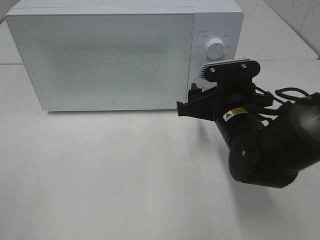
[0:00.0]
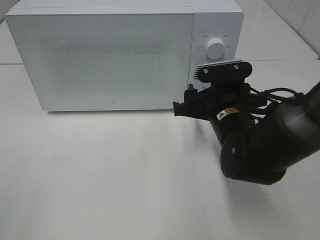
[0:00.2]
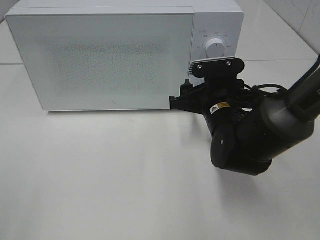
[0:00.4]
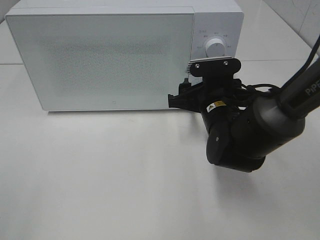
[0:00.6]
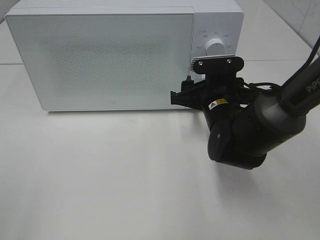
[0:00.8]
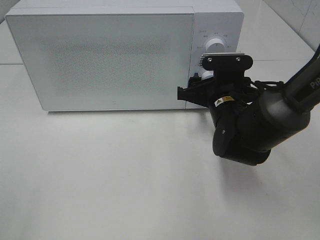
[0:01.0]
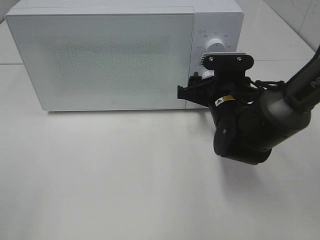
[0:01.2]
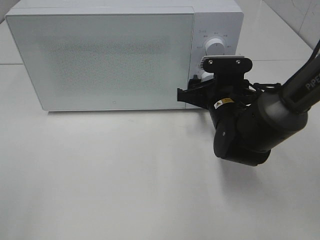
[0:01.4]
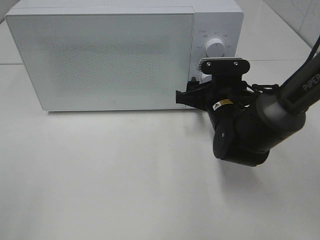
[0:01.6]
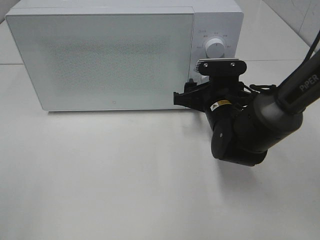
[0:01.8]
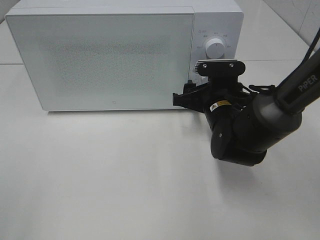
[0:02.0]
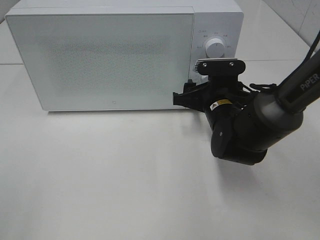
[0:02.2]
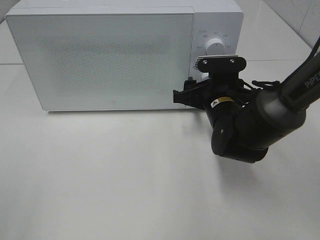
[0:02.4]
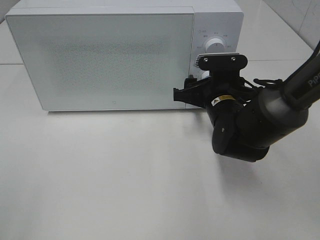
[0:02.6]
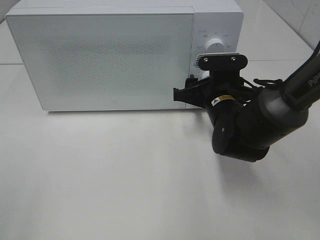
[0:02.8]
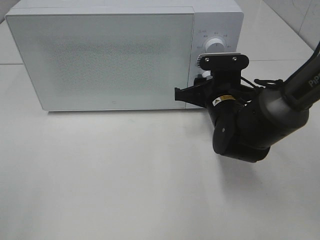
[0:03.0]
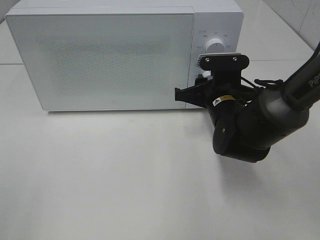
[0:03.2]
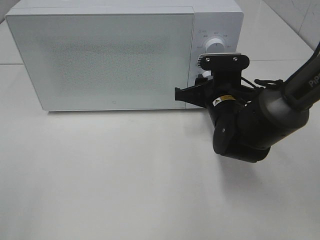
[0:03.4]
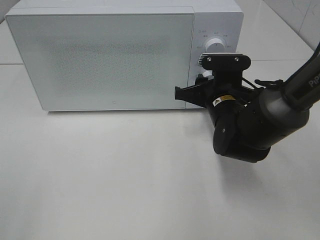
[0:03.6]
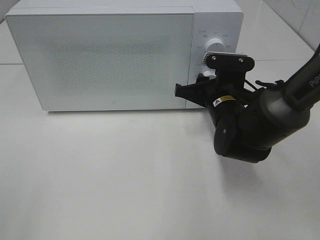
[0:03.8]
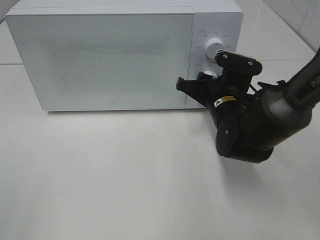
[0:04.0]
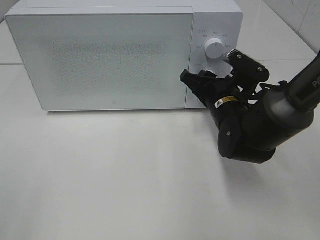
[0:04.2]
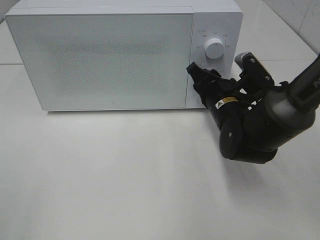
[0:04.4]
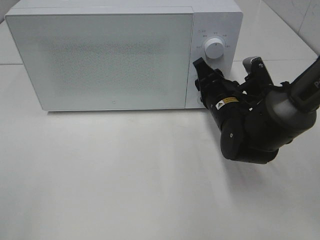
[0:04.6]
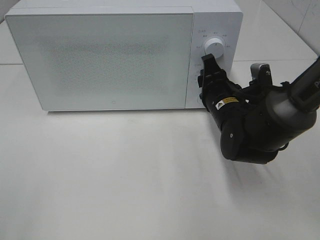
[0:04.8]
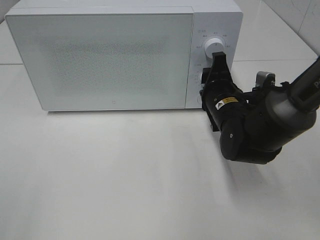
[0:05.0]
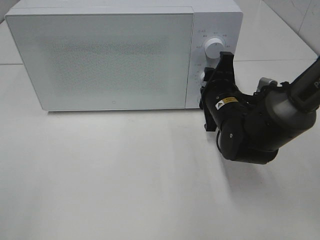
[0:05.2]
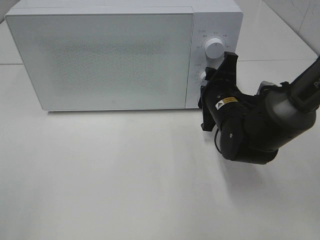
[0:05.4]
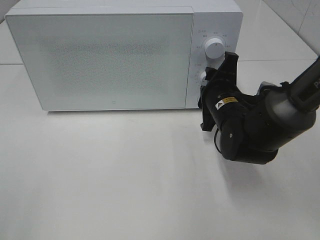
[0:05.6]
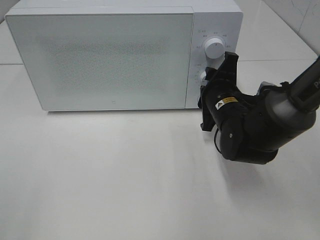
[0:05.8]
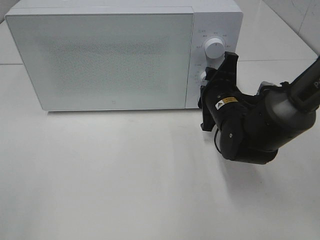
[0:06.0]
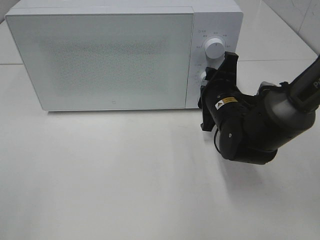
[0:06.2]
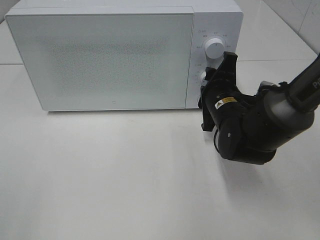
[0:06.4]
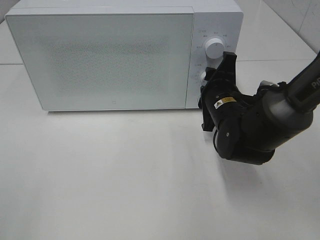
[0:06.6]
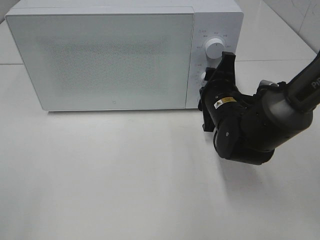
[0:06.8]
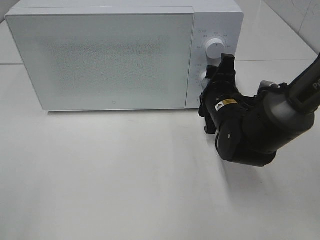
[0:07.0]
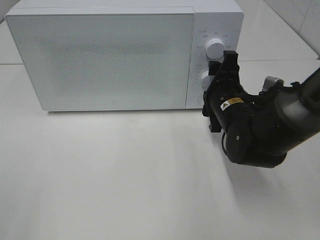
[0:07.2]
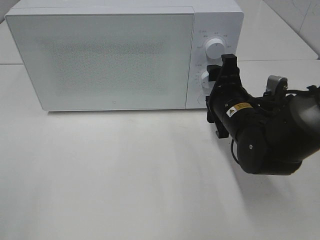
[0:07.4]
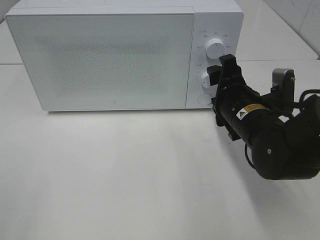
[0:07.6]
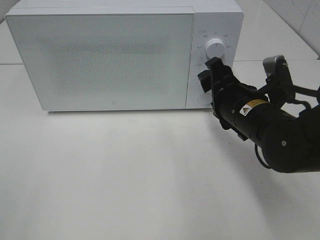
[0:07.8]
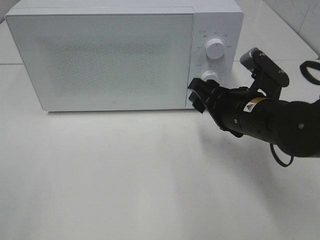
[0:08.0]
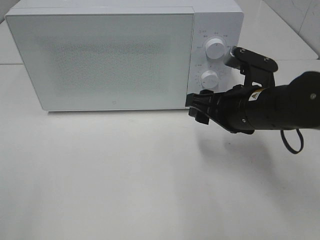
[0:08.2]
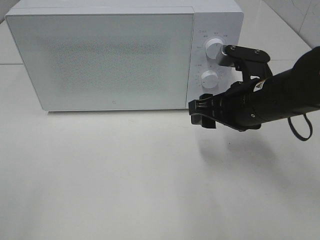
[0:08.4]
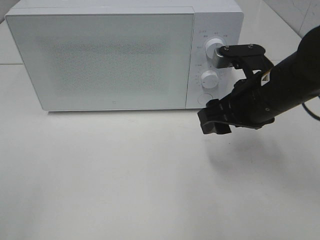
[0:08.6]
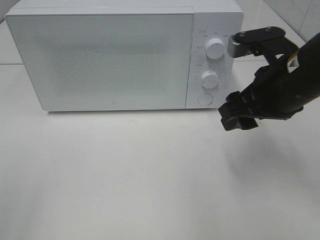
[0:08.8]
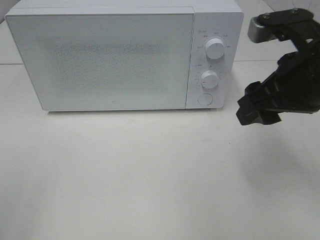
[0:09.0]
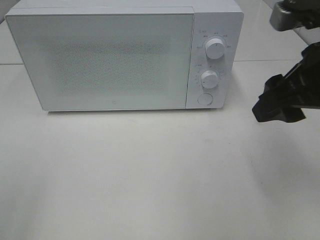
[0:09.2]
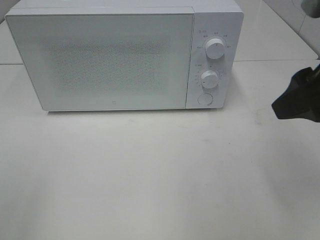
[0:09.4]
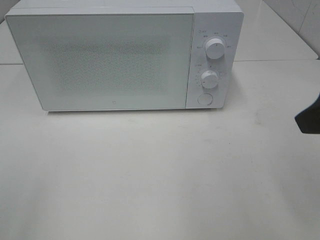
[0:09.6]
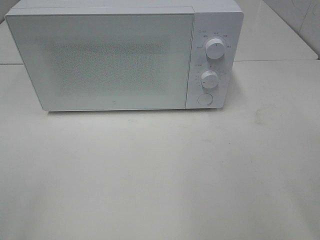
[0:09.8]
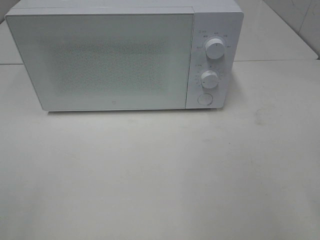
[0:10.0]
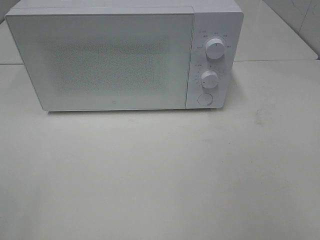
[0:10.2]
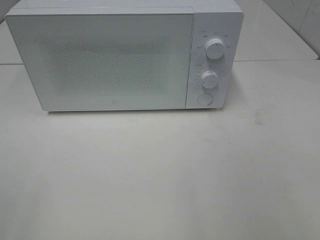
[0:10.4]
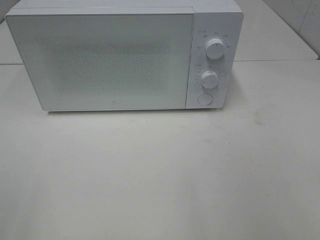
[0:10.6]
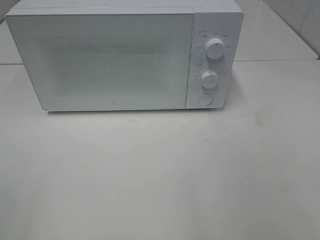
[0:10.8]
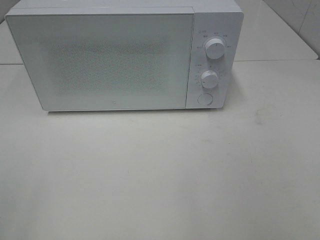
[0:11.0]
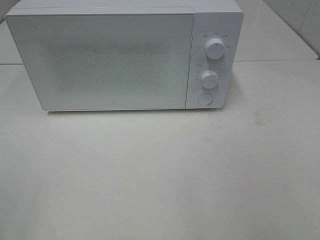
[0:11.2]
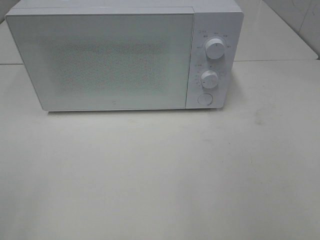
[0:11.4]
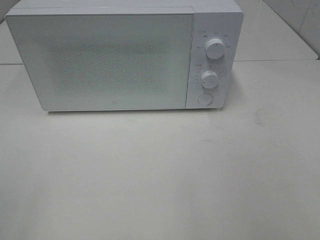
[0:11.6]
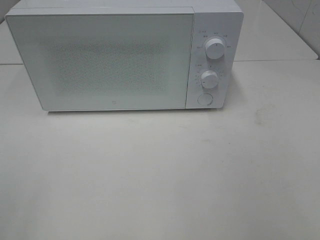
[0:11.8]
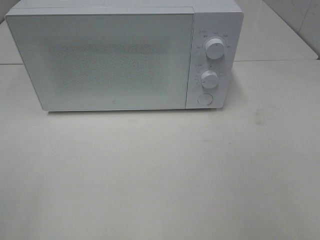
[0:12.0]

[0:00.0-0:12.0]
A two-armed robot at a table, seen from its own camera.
Task of the whole recording: Heat the burger.
Step, 0:00.0 to 0:07.0: Right hand: twist timer button.
0:00.0 to 0:01.6: The right gripper is displaced forward by some 5 cm.
0:01.6 to 0:03.0: Both grippers stay about where they are.
0:06.0 to 0:07.6: The right gripper moves some 5 cm.
0:07.6 to 0:09.0: The right gripper is displaced upward and backward by approximately 15 cm.
0:09.0 to 0:10.4: The right gripper goes about 20 cm backward and to the right.

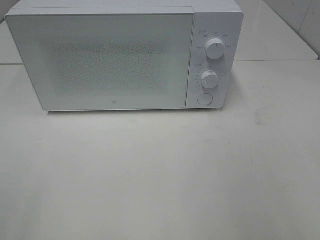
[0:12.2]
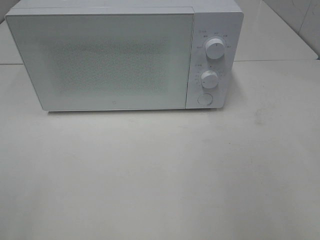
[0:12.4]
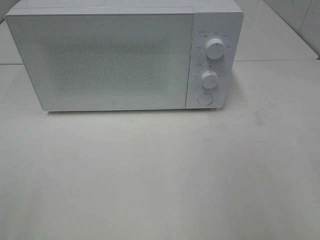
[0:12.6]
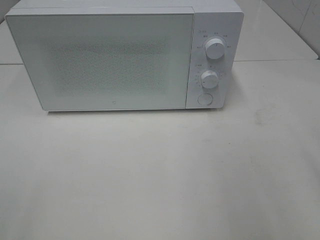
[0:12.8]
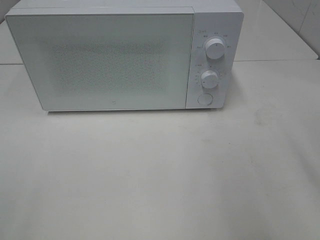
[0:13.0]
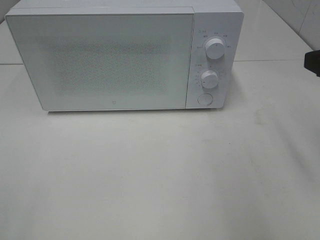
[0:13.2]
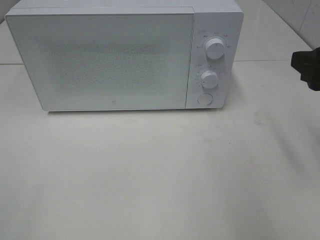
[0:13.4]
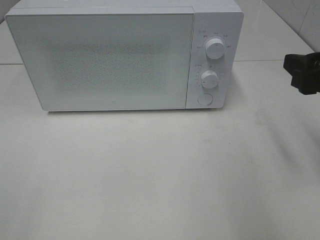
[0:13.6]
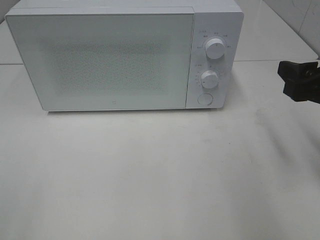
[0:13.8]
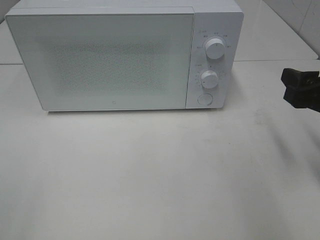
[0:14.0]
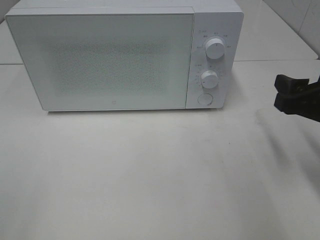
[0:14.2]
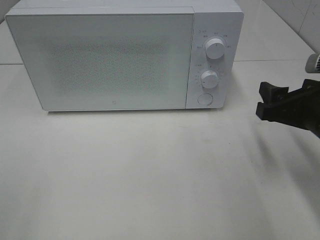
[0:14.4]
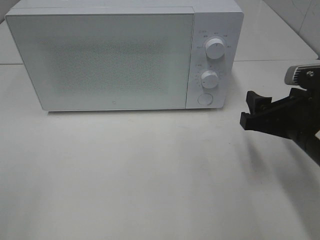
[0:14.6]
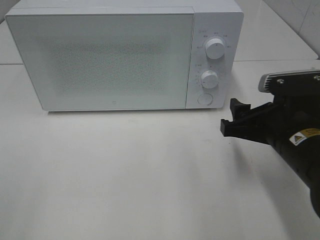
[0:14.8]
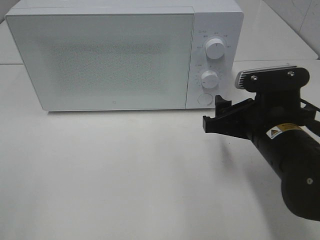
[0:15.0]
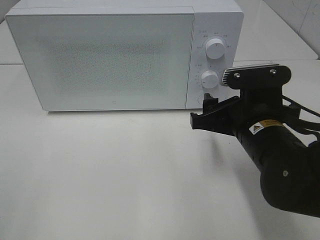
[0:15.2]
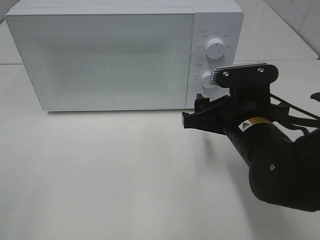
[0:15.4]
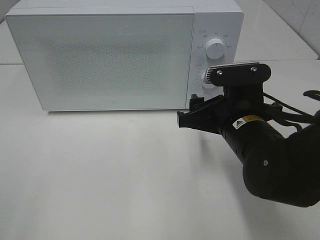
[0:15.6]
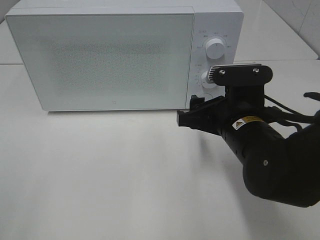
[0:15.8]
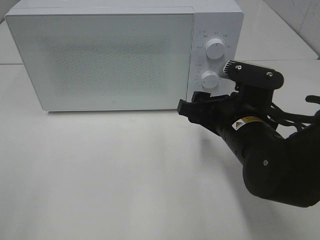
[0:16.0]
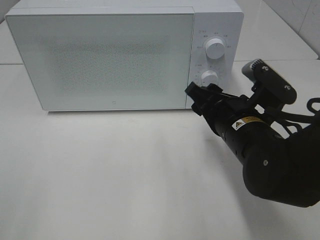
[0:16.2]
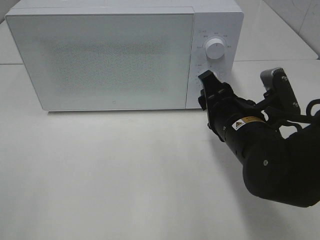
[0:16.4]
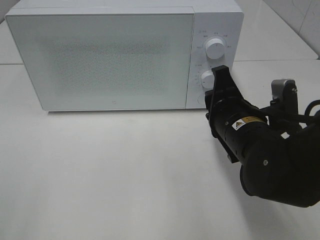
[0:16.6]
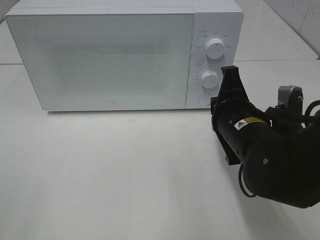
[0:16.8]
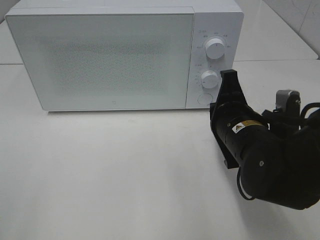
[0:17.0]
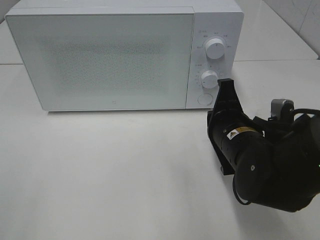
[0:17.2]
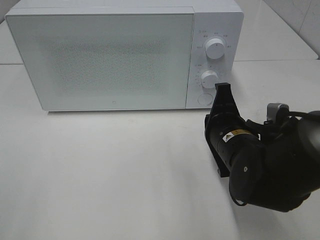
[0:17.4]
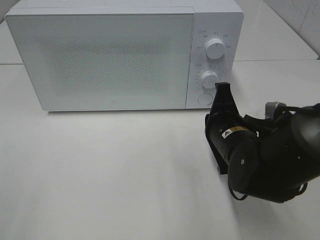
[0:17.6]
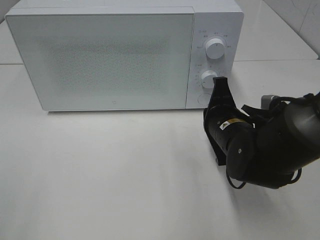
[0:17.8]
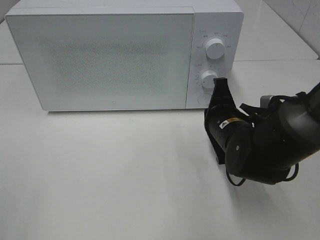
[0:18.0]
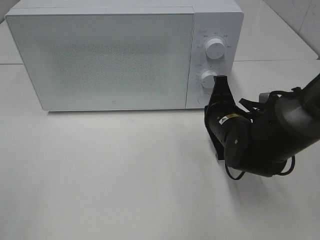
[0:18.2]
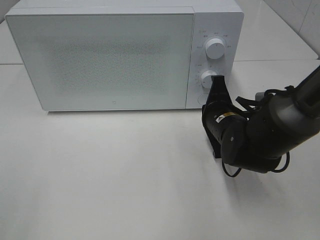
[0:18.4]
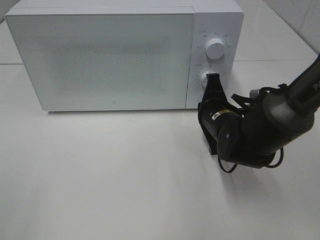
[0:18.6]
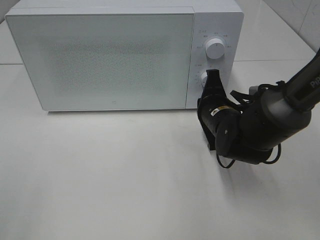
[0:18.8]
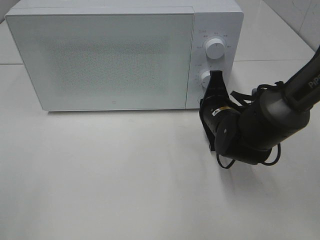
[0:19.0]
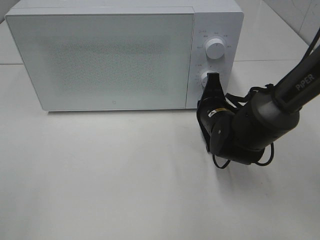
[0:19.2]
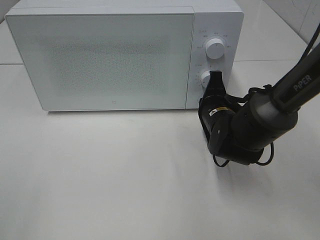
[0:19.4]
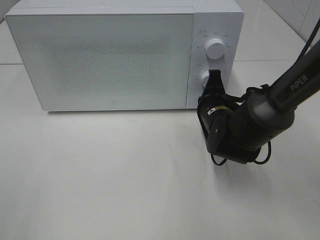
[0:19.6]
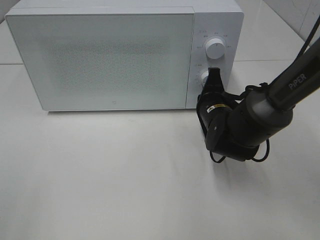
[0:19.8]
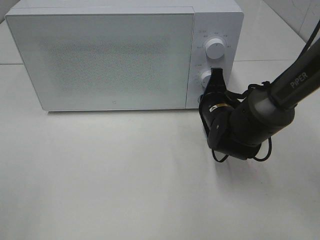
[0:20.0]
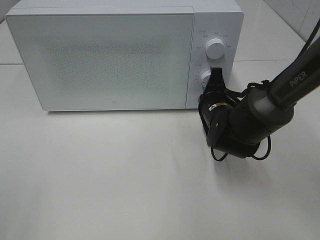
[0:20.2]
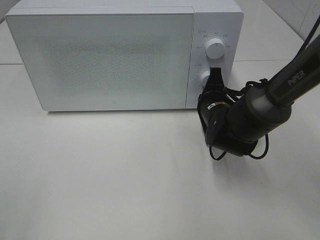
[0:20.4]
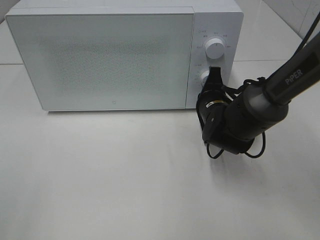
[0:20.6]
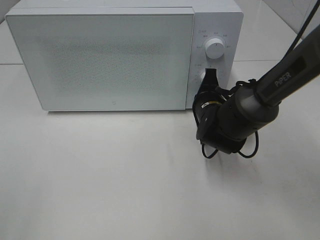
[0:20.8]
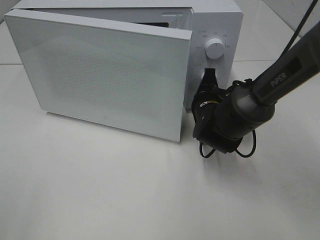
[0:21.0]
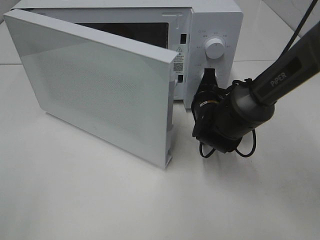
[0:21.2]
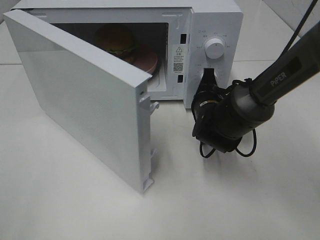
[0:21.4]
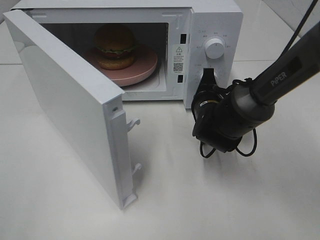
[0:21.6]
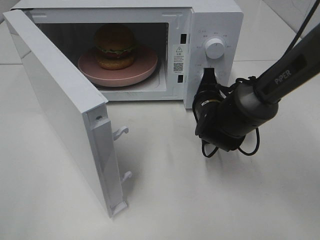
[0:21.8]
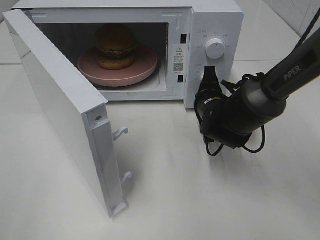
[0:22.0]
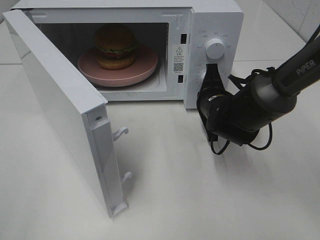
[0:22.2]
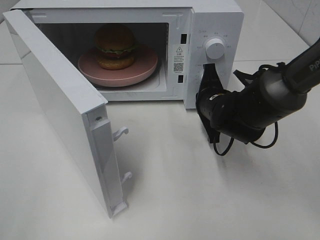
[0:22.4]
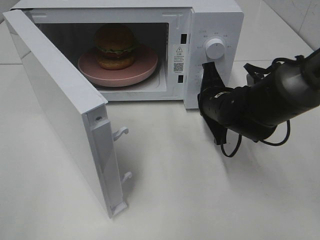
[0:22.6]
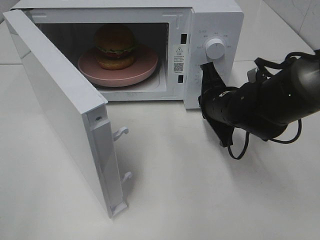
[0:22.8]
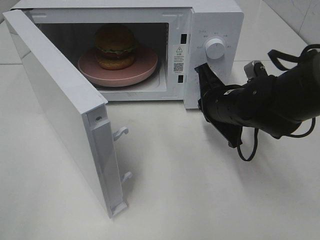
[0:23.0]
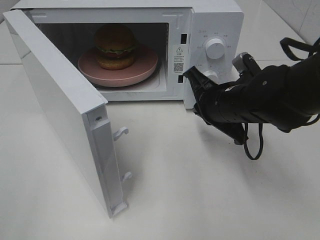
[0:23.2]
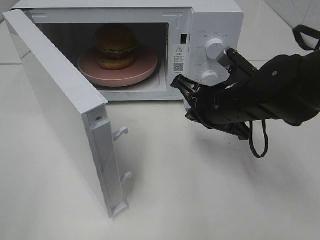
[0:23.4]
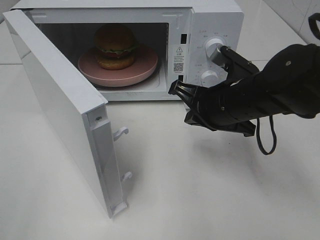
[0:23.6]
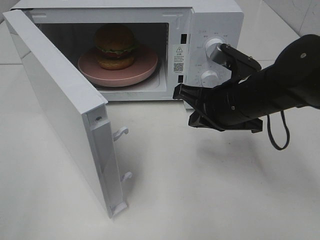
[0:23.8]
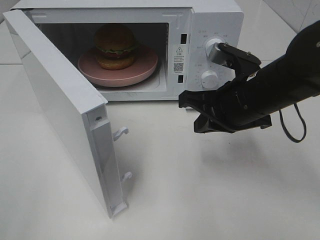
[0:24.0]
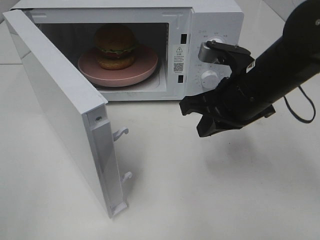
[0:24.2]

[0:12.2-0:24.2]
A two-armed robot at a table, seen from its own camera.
Task of the whole recording: Heat the burger.
Step, 0:12.2 to 0:22.4: Right hand: press the switch.
0:12.2 to 0:13.8: The right gripper heads forward and downward, covering about 20 cm.
0:13.8 to 0:15.2: The right gripper moves to the left and downward, about 15 cm.
0:15.2 to 0:16.6: The right gripper closes.
0:16.6 to 0:18.2: The right gripper goes approximately 10 cm forward and downward, and closes up.
0:18.2 to 0:19.8: The grippers stay close to where they were, moving slightly.
0:22.6 to 0:24.2: The right gripper shifts some 10 cm upward and backward.
